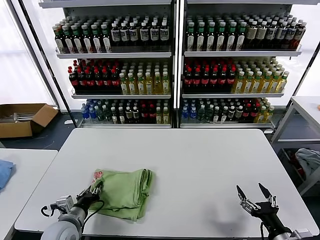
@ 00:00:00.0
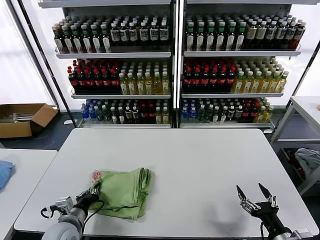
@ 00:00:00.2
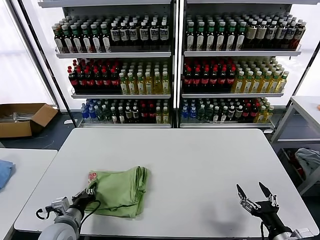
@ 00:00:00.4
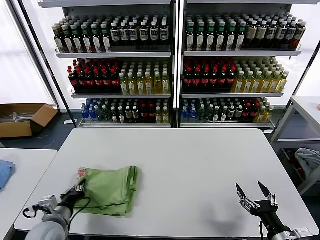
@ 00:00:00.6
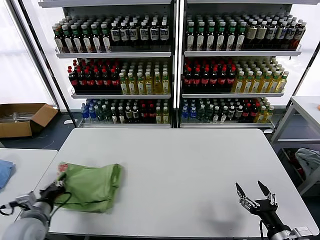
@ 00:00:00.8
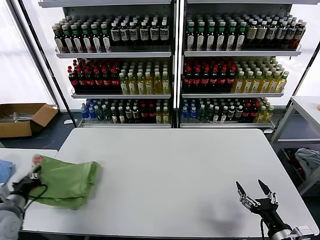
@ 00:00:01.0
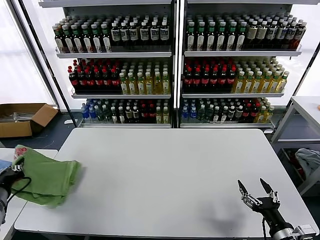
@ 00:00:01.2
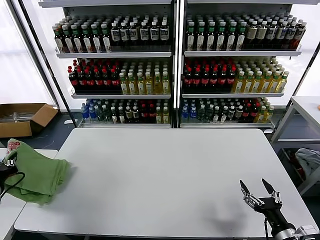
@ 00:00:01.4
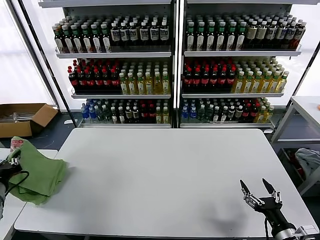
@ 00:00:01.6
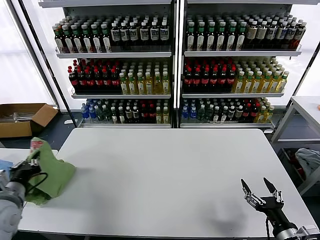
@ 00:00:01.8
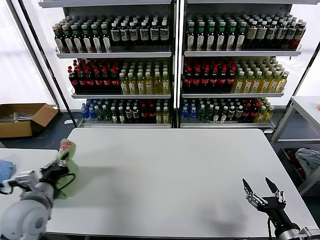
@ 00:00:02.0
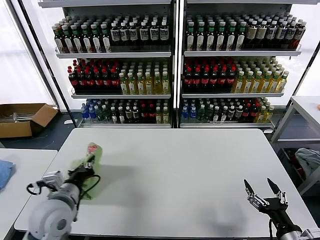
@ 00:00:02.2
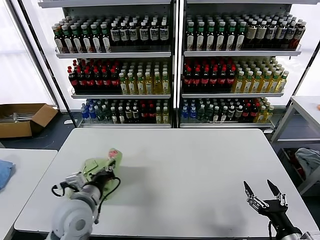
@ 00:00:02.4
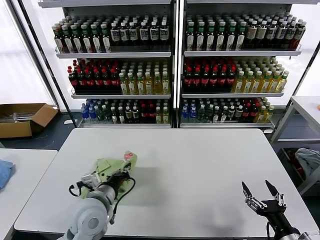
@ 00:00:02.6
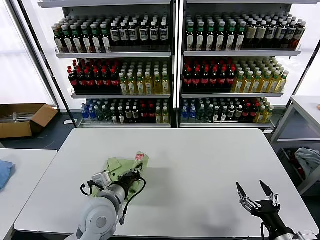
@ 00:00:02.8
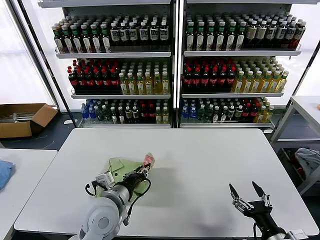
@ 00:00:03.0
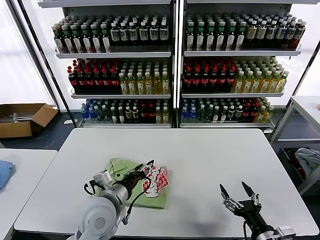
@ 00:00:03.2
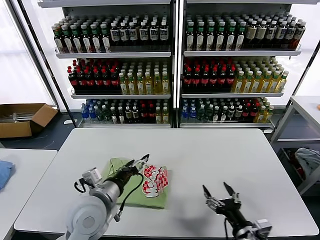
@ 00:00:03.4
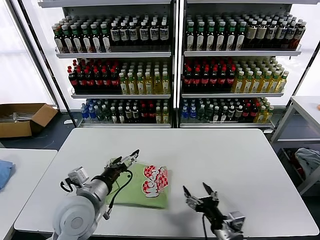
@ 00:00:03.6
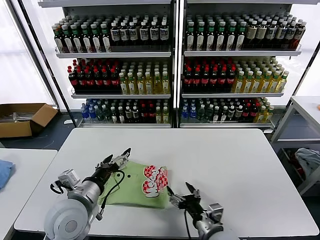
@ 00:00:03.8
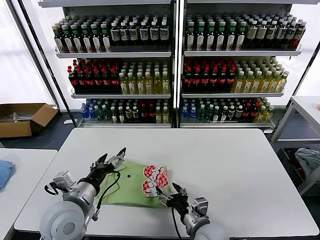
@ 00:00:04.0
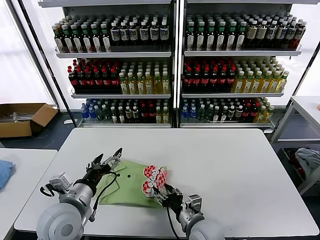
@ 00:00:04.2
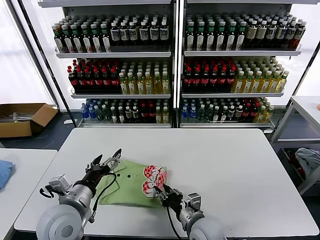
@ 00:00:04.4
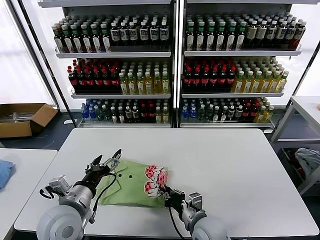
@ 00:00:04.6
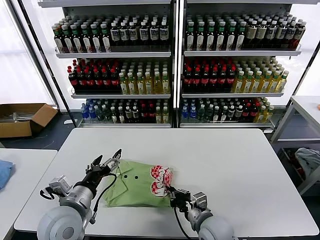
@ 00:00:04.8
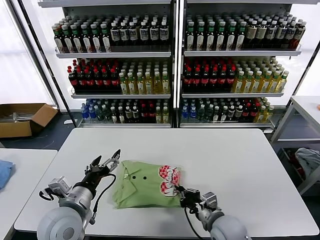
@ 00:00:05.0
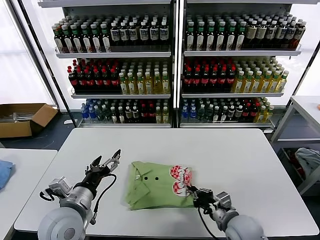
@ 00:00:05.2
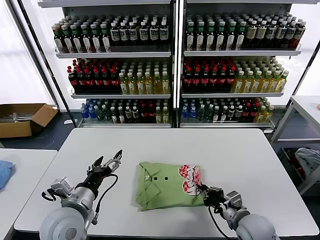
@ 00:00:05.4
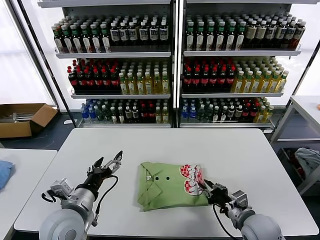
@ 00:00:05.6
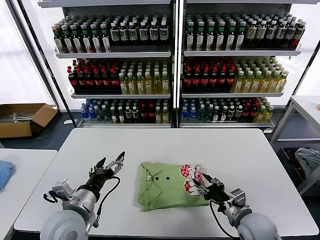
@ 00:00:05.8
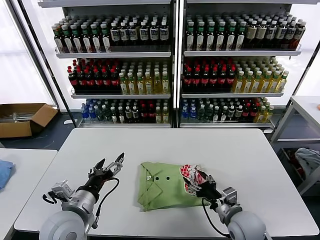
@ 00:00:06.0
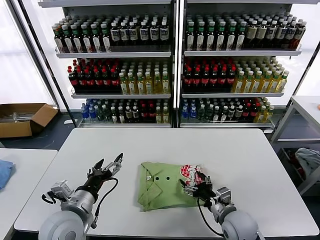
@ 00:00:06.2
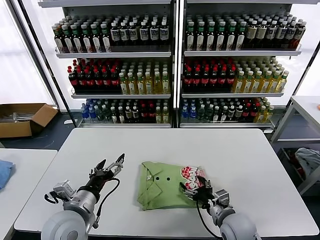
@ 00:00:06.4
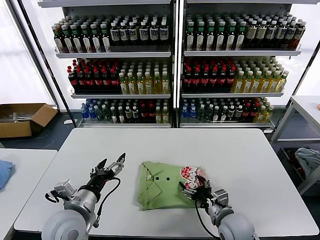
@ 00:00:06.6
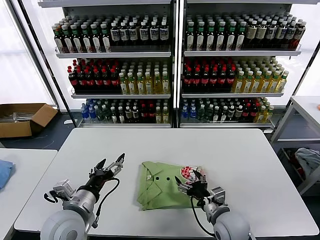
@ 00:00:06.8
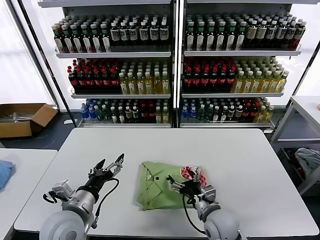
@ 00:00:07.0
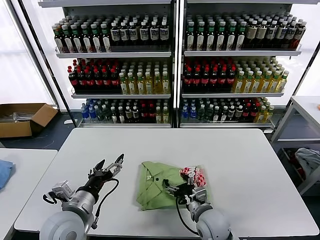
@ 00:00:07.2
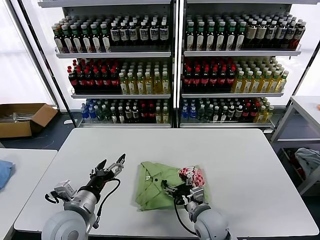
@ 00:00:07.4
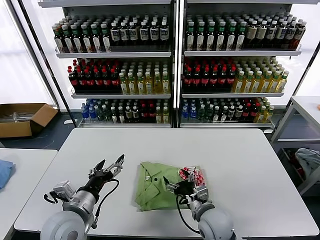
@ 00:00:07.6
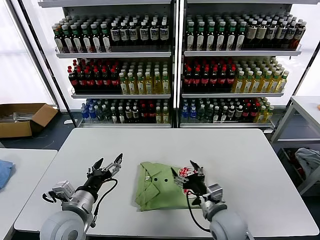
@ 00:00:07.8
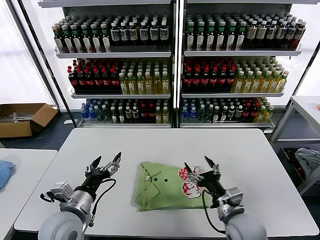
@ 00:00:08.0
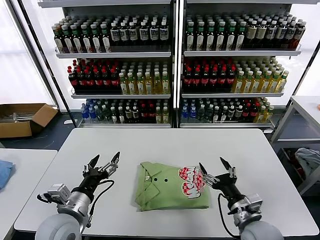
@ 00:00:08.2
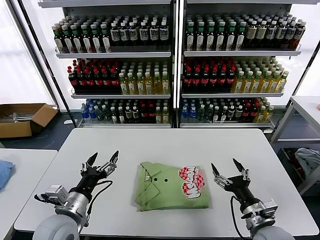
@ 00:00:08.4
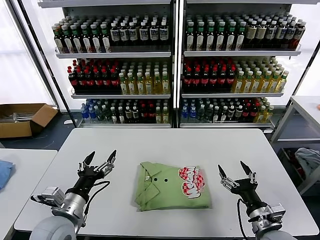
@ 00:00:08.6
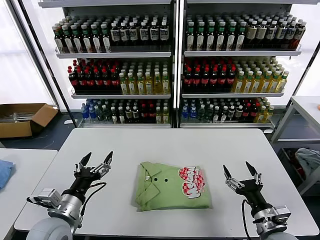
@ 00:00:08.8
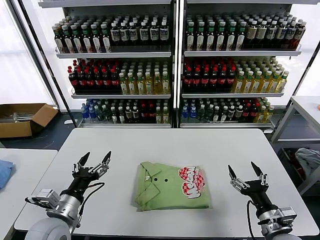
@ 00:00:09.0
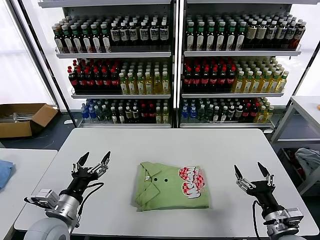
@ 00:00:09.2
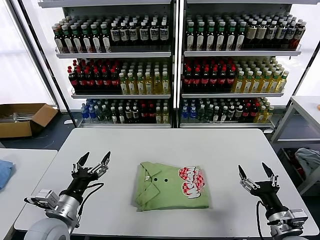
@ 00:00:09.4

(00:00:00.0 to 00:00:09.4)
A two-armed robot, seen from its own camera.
Task of the whole recording: fold and organize the clothes.
Step, 00:00:00.0 - 00:00:03.2: Flip the folded clothes over with left gripper.
Step, 00:00:03.4 - 00:00:07.6: Drag the clothes to the center of the table.
00:00:00.0 - 00:00:01.6: The left gripper heads to the left and upward, covering some 20 cm.
00:00:01.6 - 00:00:03.2: The right gripper moves to the left, roughly 5 cm, while the left gripper goes roughly 30 cm to the right, and opens its fingers.
00:00:03.2 - 00:00:04.8: The right gripper goes about 20 cm to the left and forward, and closes up. The left gripper shifts approximately 10 cm to the left, and opens its fingers.
00:00:04.8 - 00:00:06.2: The right gripper shifts approximately 10 cm to the right, and opens its fingers.
00:00:06.2 - 00:00:07.8: The right gripper moves to the left, some 5 cm.
00:00:07.8 - 00:00:09.4: The right gripper shifts some 20 cm to the right and backward.
